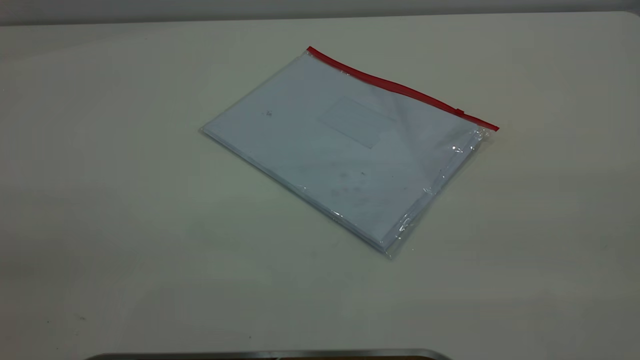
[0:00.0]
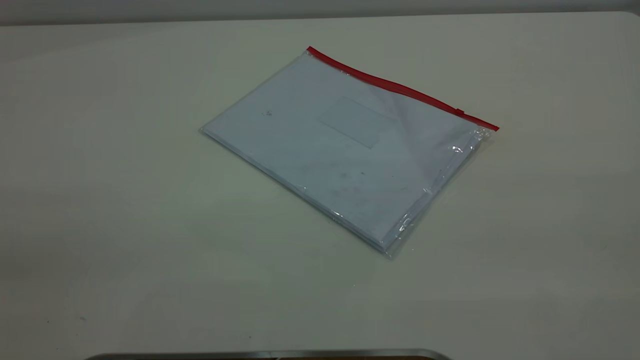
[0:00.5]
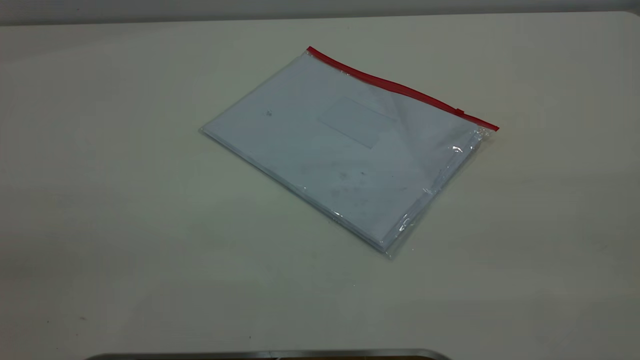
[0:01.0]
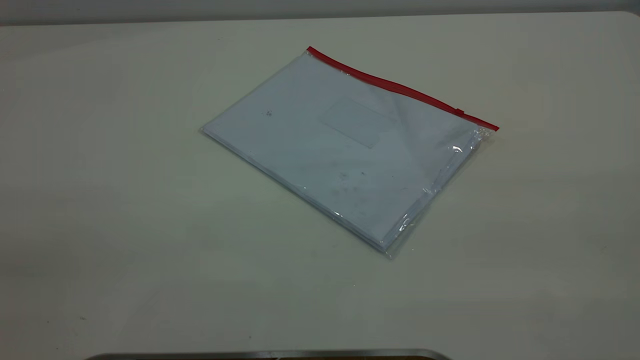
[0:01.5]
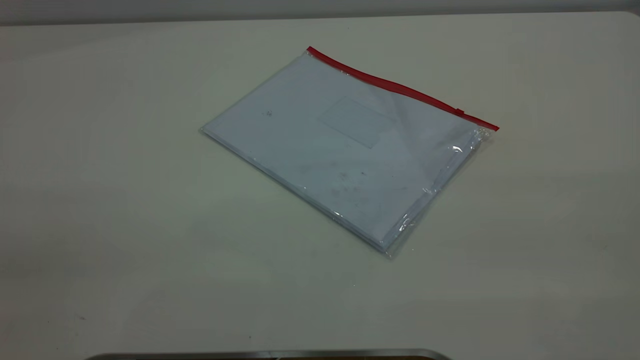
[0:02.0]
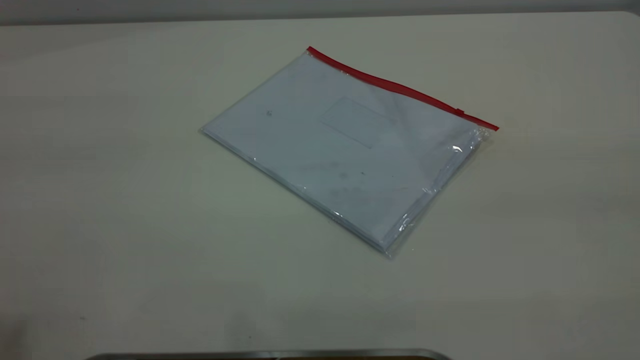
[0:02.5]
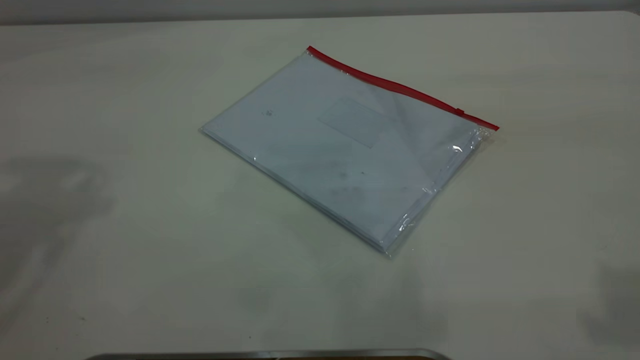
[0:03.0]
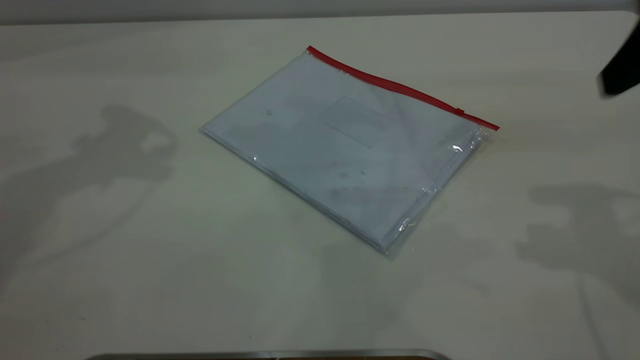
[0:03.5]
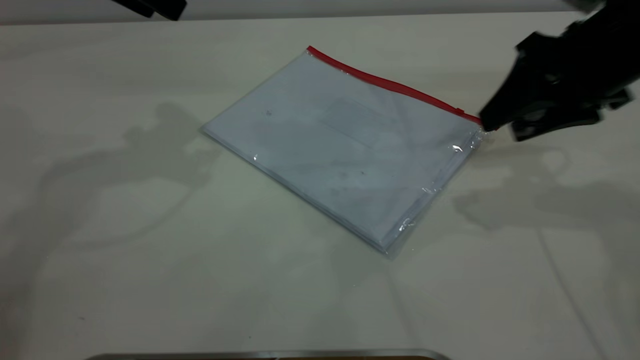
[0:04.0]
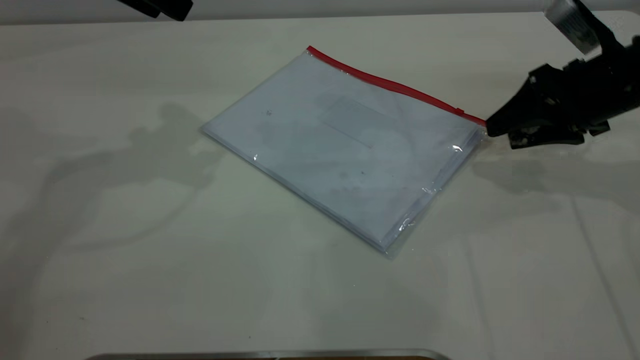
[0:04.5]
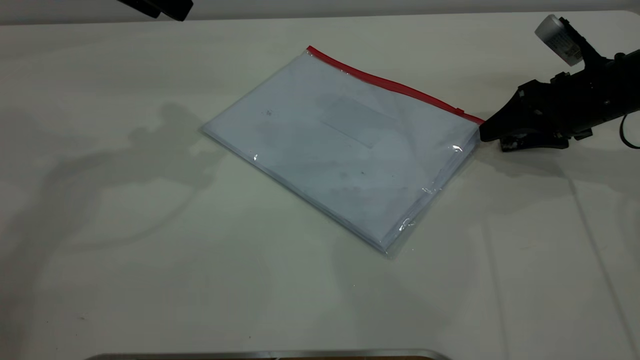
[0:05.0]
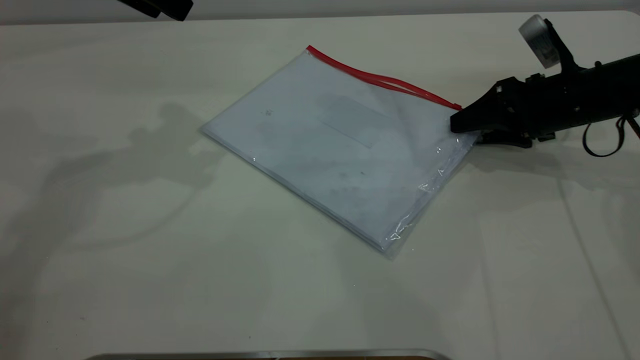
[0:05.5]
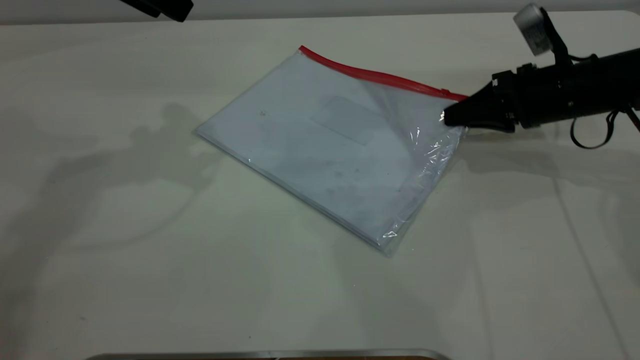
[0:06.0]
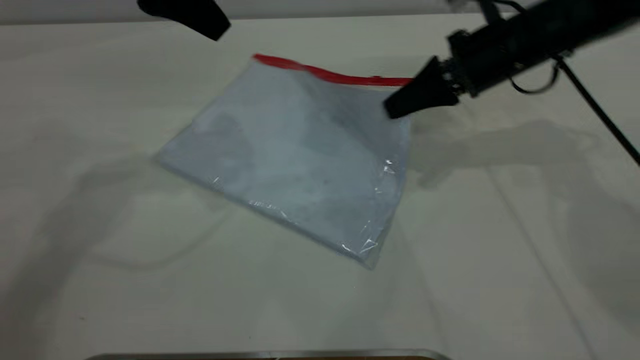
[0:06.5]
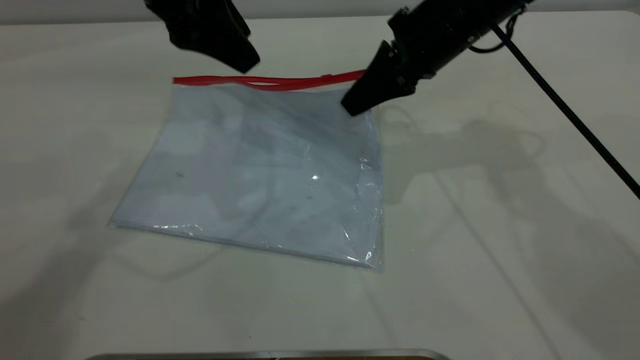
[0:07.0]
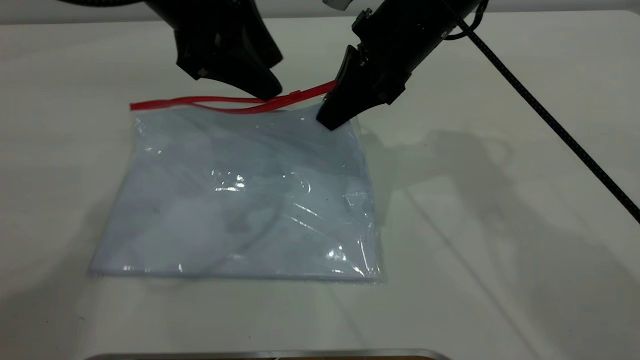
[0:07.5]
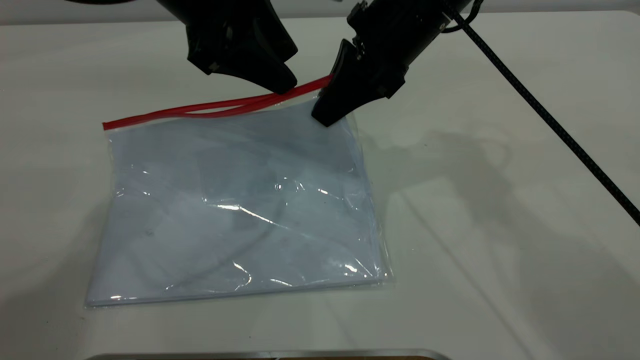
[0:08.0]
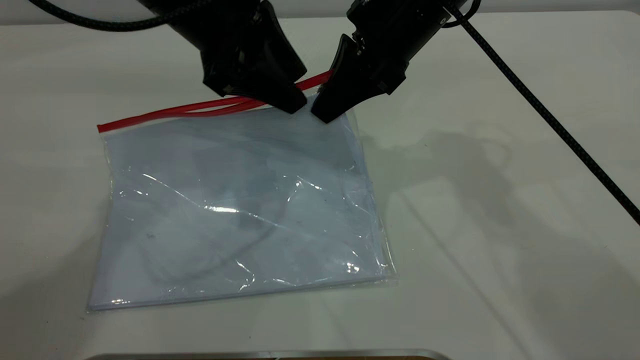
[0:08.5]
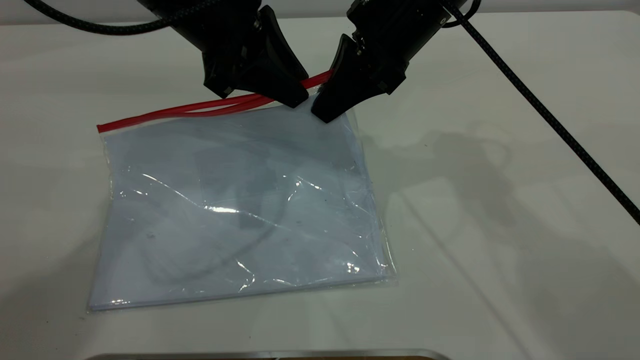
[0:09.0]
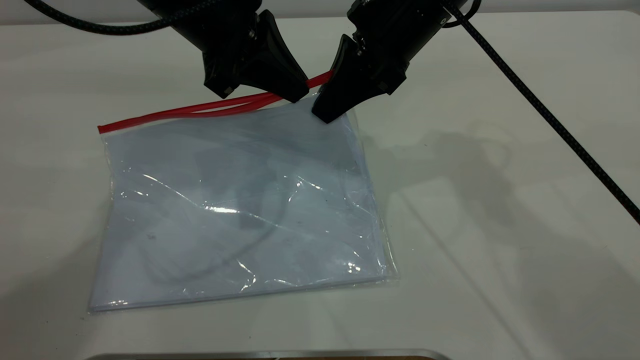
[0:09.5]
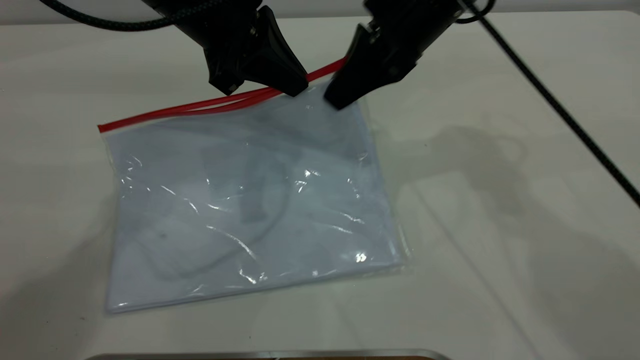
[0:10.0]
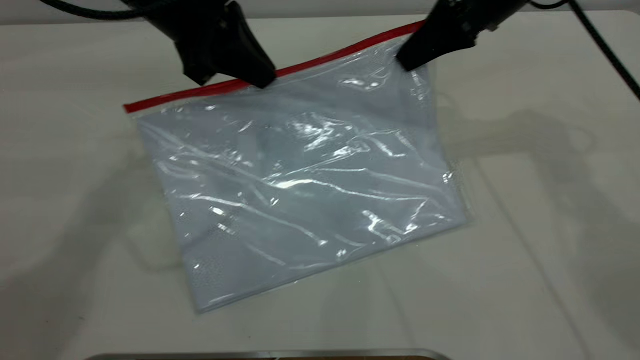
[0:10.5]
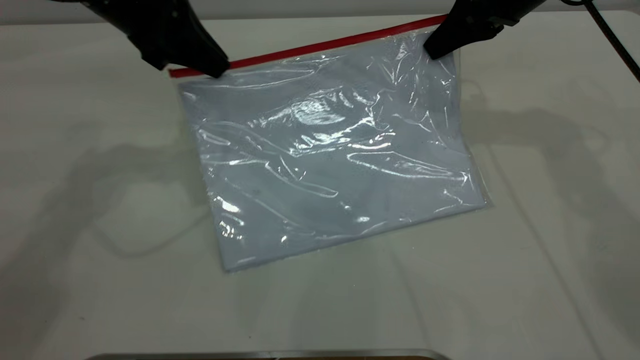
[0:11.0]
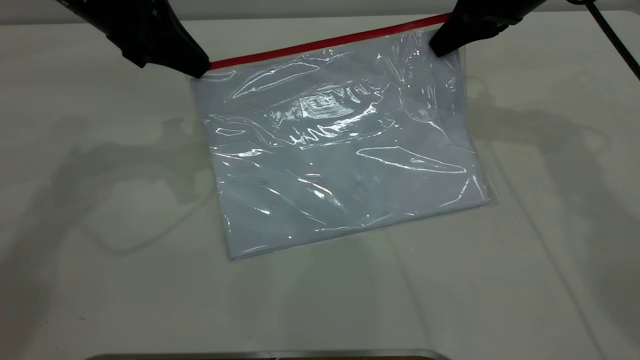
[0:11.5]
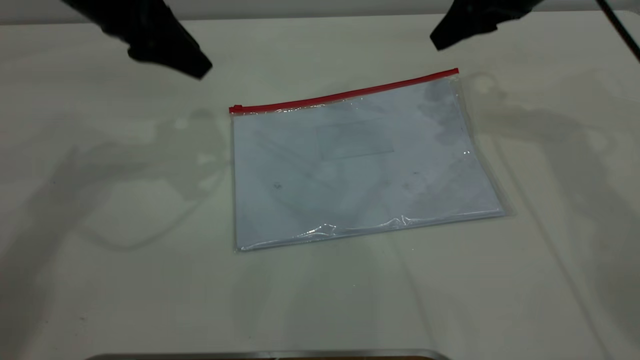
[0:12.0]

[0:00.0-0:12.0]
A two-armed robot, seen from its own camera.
Step, 0:00.0 to 0:06.0: Pick up the transparent plastic bag with the right gripper.
Step, 0:06.5 to 0:11.5: Pulling up the zipper on the transparent plastic bag with the left gripper to close it.
0:00.0 to 0:02.0: Both grippers stay about where they are.
0:02.0 to 0:04.0: The right gripper moves forward and downward, approximately 40 cm, and opens.
0:04.0 to 0:06.0: The right gripper is displaced downward and forward by some 15 cm, and closes.
0:06.0 to 0:08.0: The right gripper is displaced to the left and upward by some 20 cm, while the left gripper heads to the right, covering roughly 10 cm.
0:08.0 to 0:10.0: The left gripper closes up.
0:10.0 to 0:12.0: The left gripper moves to the left, approximately 10 cm, and opens up; the right gripper moves to the right and forward, some 15 cm, and opens up.

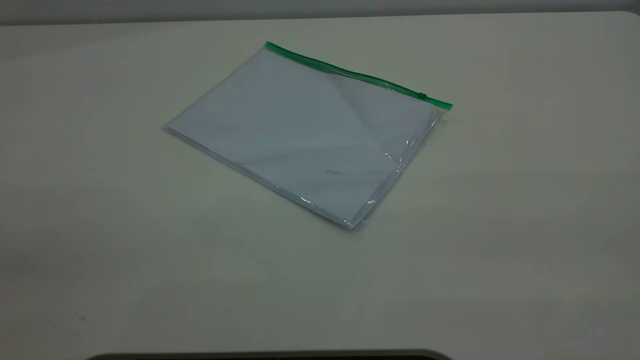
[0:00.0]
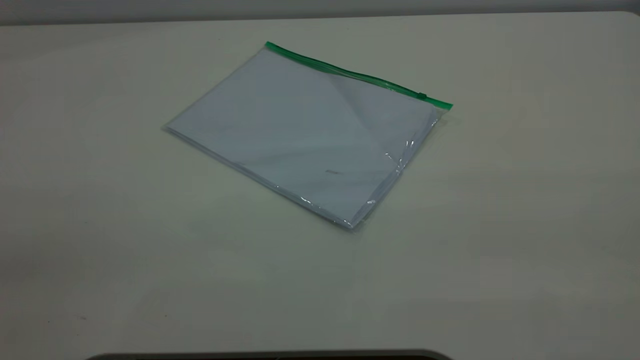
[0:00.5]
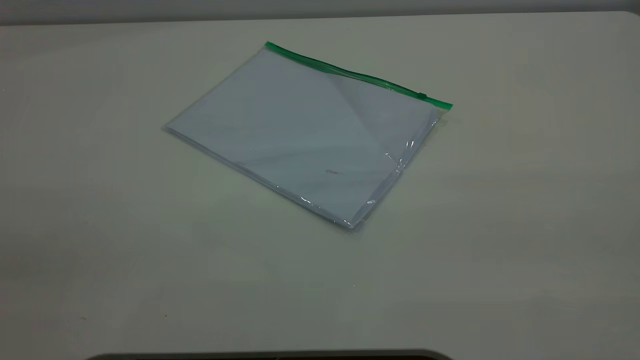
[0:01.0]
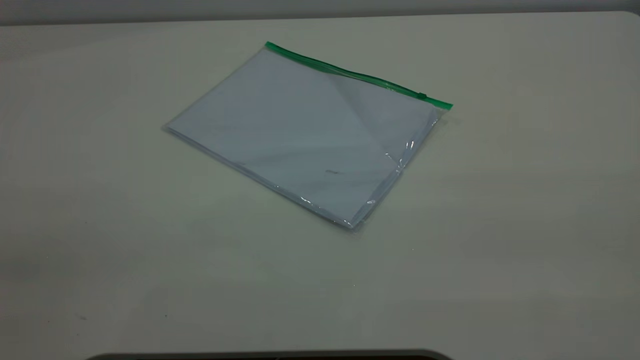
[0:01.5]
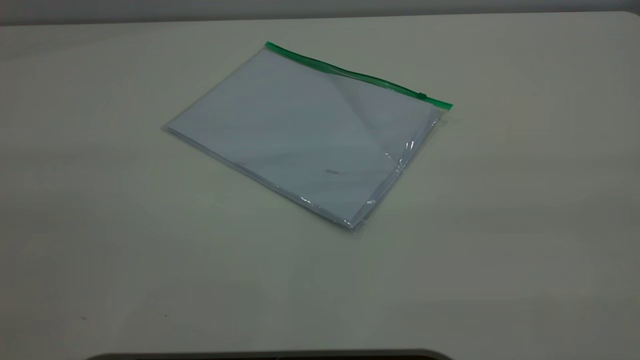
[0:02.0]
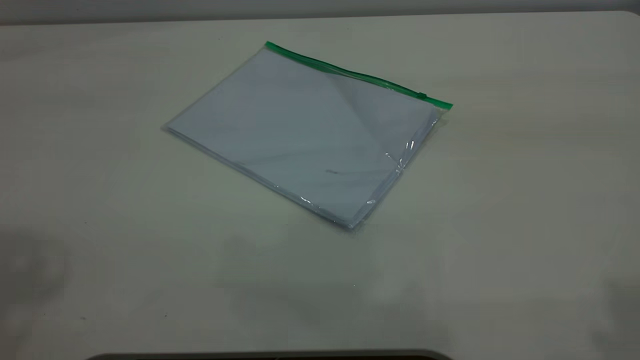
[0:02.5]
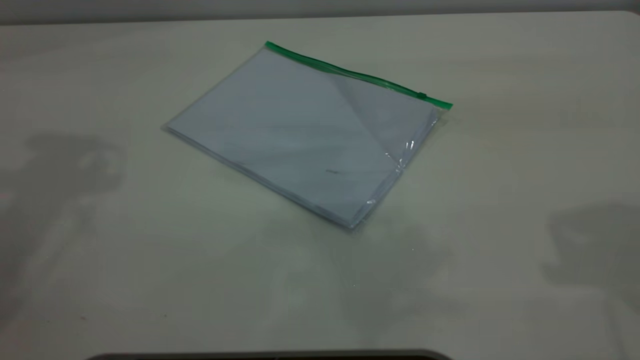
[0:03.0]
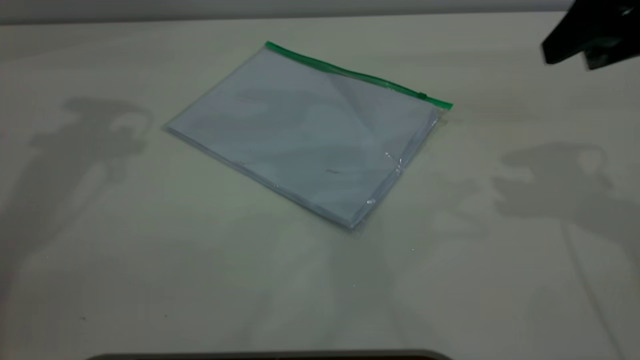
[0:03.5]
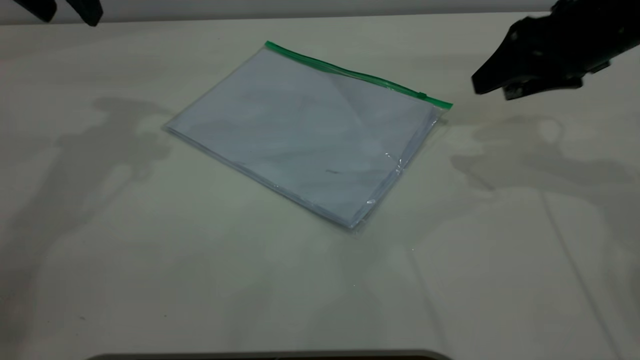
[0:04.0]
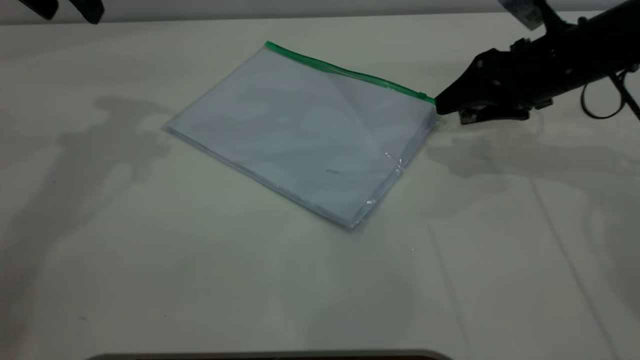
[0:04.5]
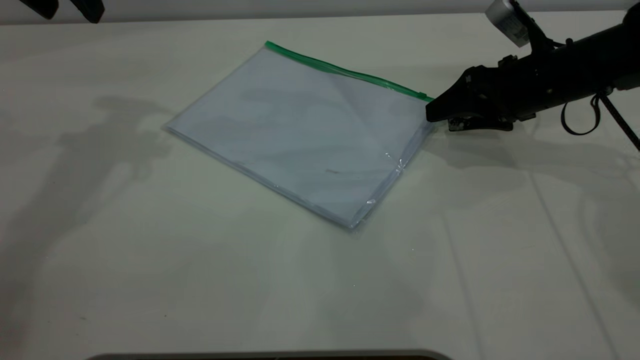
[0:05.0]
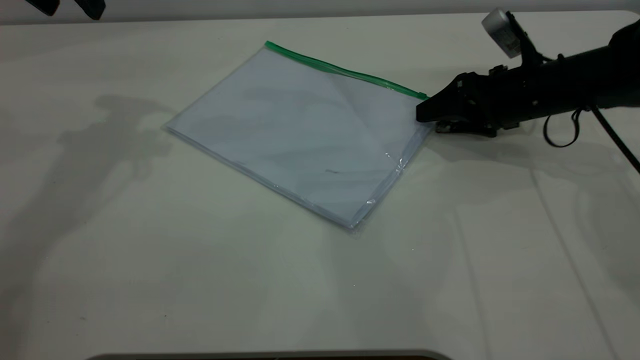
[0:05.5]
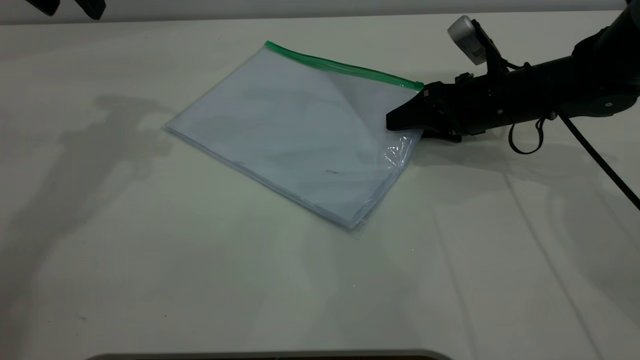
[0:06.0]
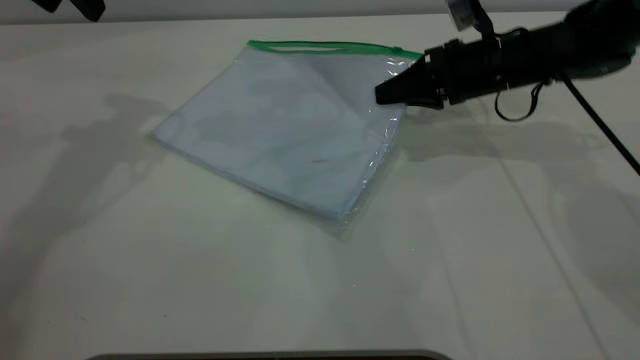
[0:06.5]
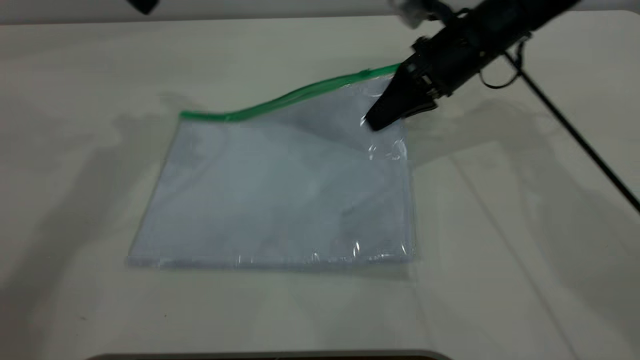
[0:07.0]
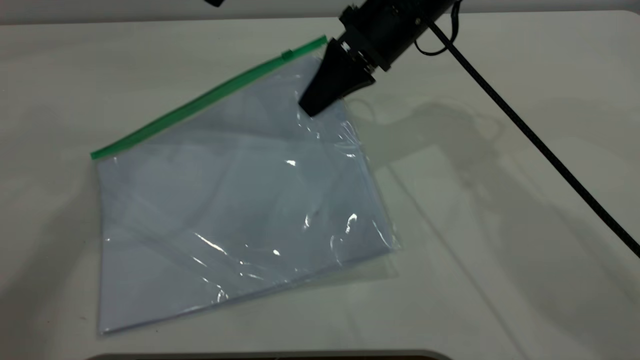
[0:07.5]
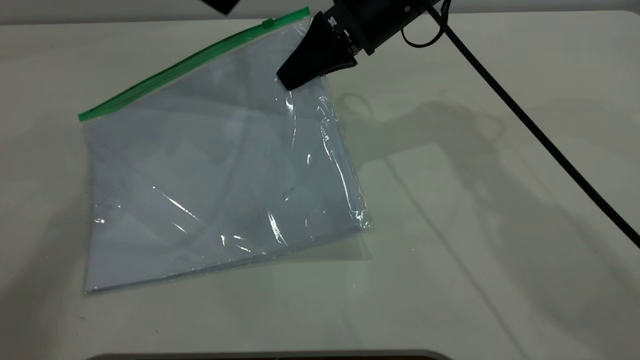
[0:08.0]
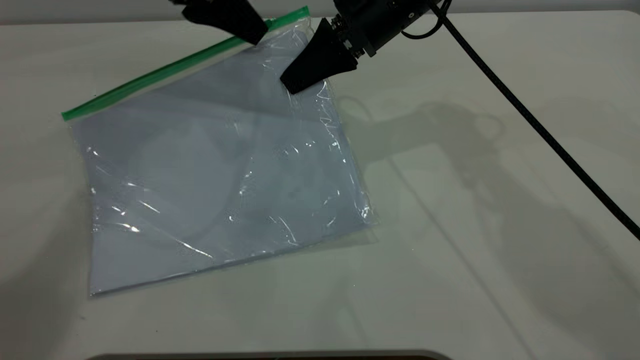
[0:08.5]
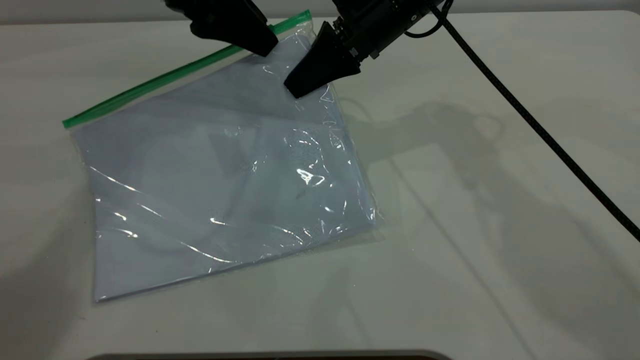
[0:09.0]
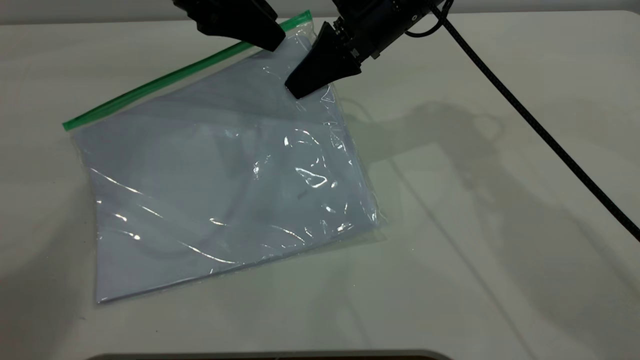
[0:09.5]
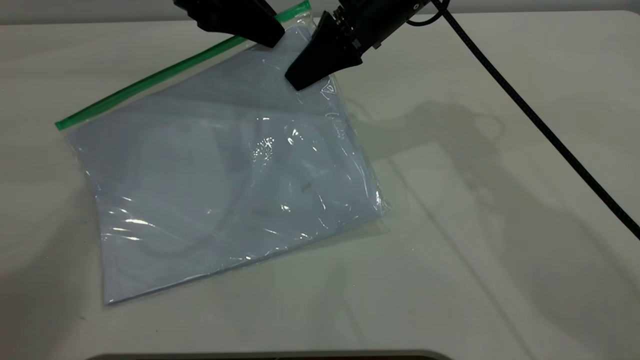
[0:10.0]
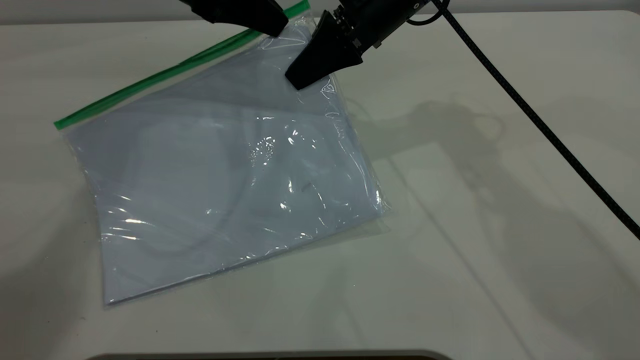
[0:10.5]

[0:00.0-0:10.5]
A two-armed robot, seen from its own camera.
Step, 0:00.0 to 0:06.5: Pick up the transparent plastic bag with the right gripper.
0:02.0 to 0:04.0: The right gripper moves forward and downward, roughly 40 cm.
0:04.0 to 0:06.5: The right gripper moves downward, to the left and forward, roughly 15 cm, and closes its fingers.
0:06.5 to 0:08.5: The left gripper shifts some 10 cm to the right; the right gripper moves to the left and upward, some 15 cm.
0:08.5 to 0:10.5: The left gripper closes up.
